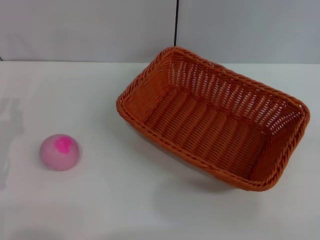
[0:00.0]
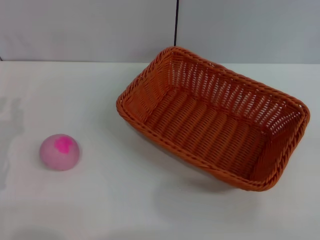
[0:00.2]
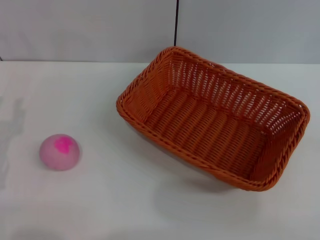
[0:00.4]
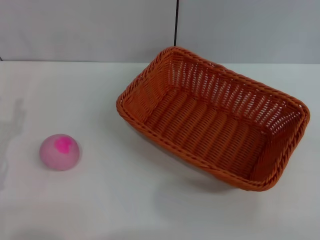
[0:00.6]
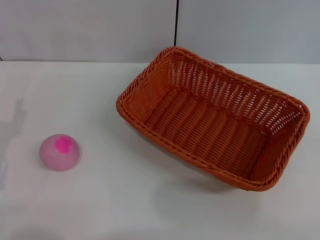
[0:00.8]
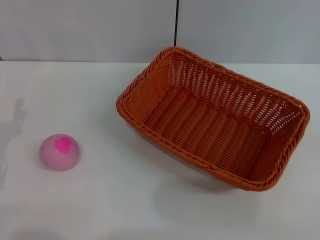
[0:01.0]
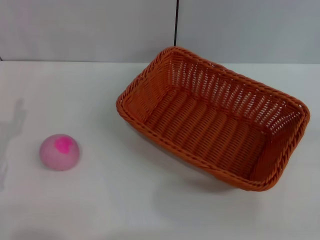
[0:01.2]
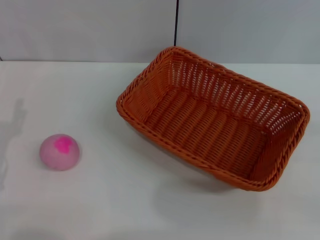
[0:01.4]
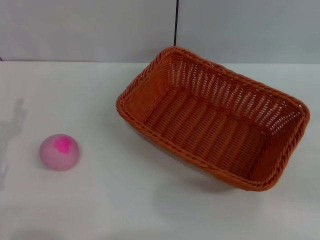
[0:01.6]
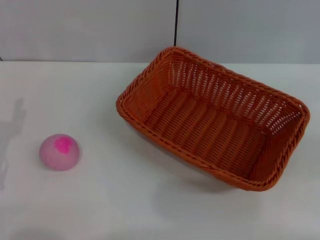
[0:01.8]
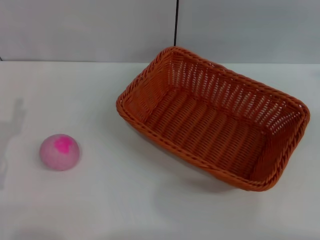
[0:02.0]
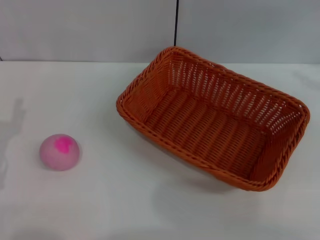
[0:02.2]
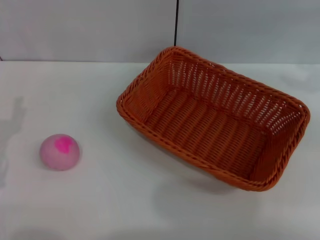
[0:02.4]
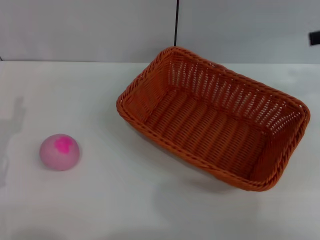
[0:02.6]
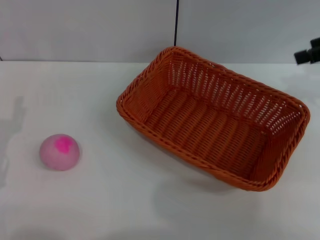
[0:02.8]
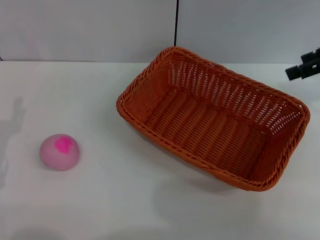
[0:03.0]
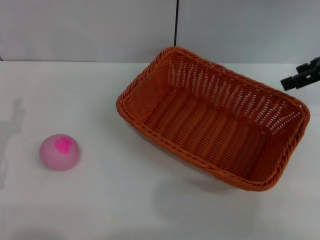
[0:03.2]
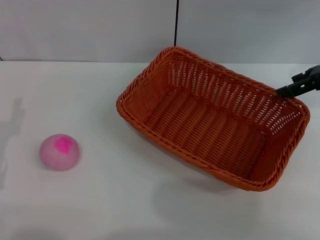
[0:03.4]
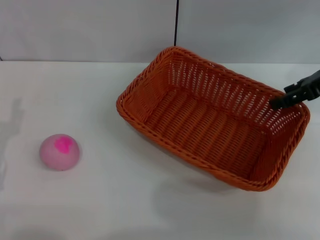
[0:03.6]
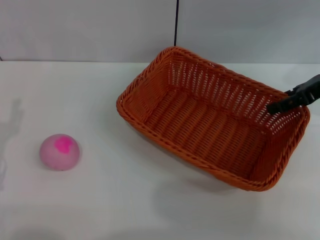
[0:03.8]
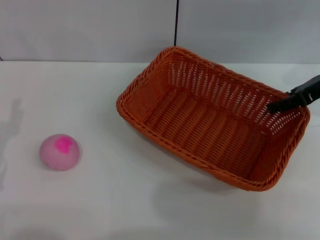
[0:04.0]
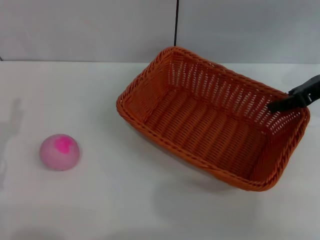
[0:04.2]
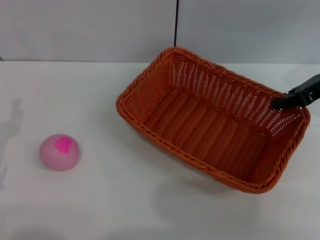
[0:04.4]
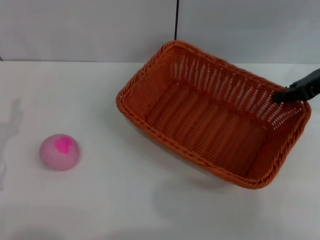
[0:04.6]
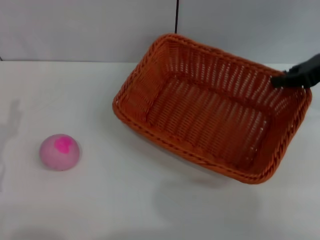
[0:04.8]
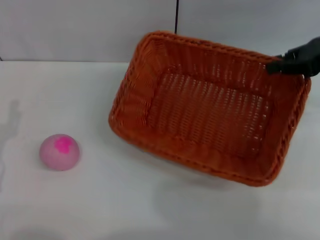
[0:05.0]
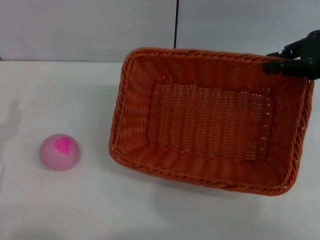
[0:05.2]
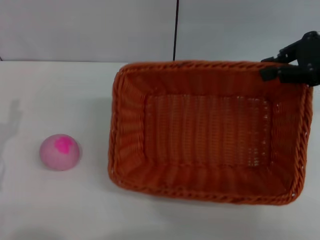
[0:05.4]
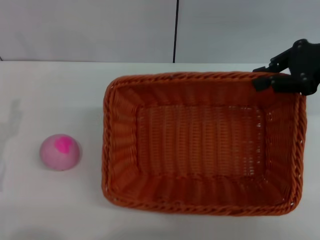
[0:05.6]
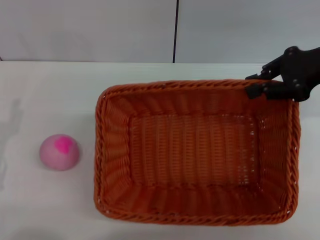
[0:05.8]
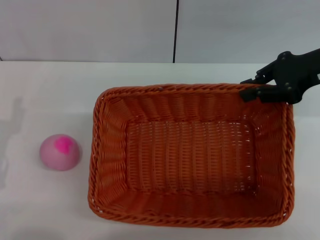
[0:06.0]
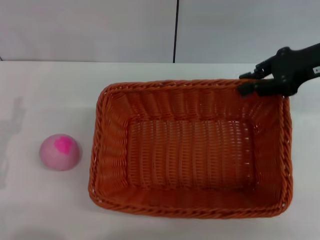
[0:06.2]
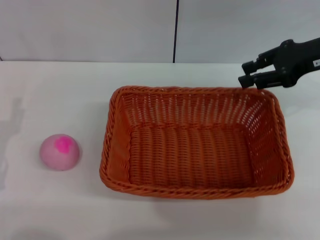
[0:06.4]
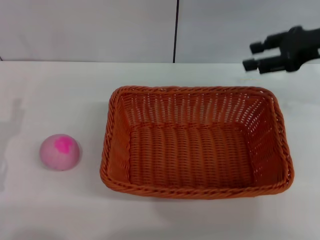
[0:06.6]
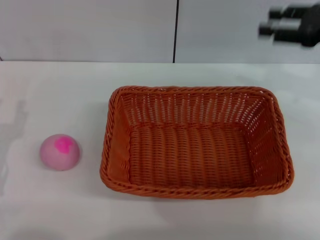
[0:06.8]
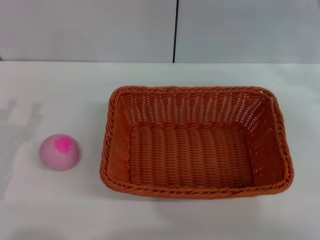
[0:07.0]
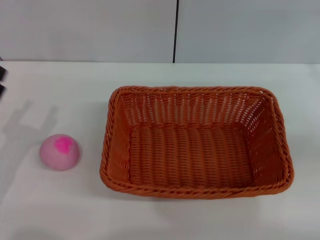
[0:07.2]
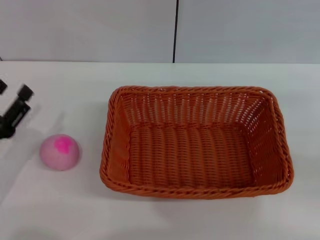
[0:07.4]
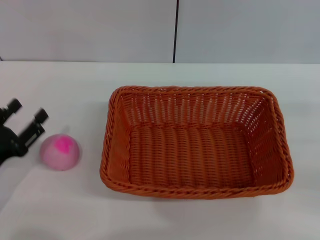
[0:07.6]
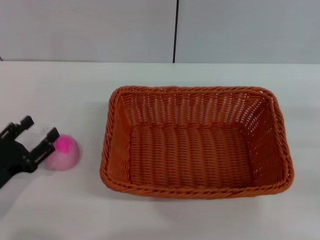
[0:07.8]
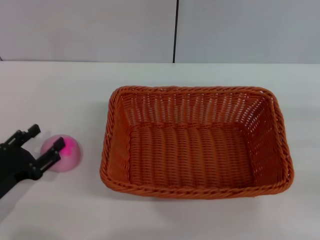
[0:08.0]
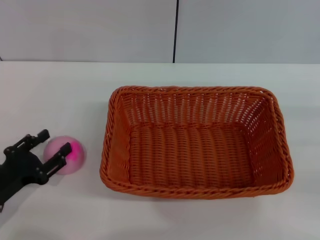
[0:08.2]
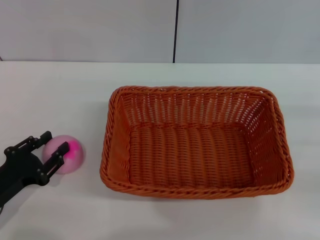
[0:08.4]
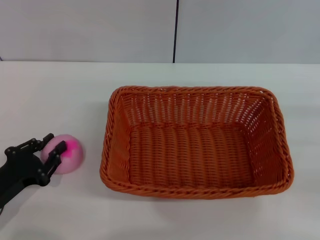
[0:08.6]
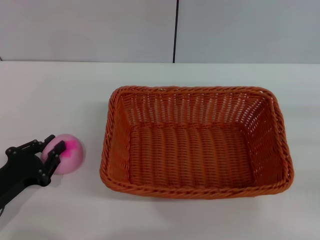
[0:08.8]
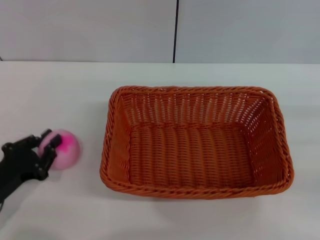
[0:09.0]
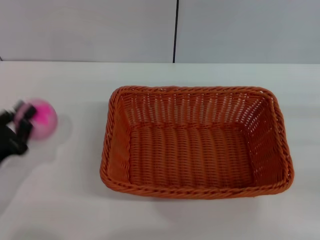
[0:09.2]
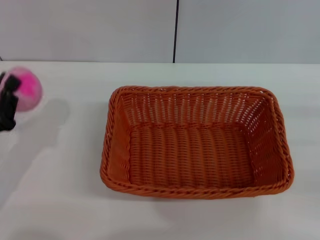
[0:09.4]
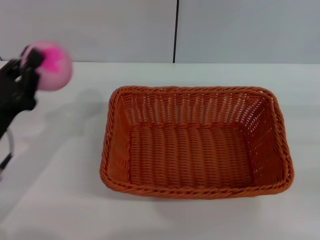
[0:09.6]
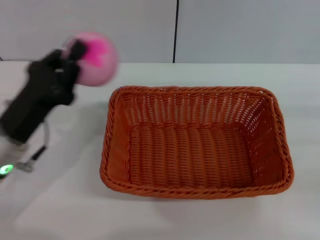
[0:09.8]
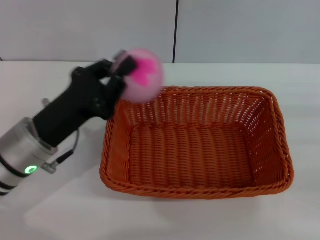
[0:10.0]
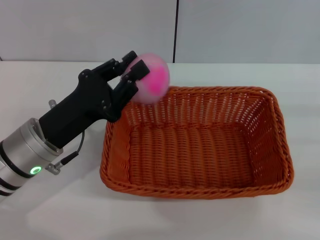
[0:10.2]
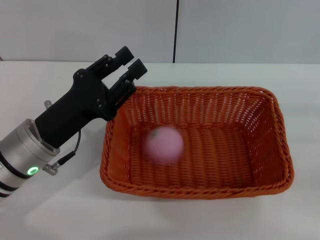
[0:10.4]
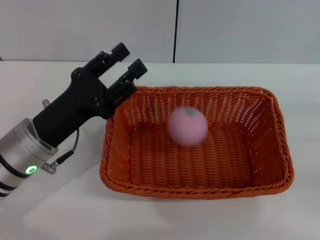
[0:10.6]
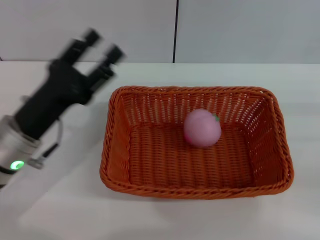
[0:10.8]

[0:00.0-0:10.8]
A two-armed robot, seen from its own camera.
Step, 0:00.0 to 0:04.6: Pick up the light basket with the right gripper.
Step, 0:04.8 to 0:06.4: Place the light basket in the center of view with the right gripper.
Step, 0:06.6 to 0:09.2: Pick up the peach with the left gripper.
0:01.6 to 0:03.0: The right gripper heads forward, to the left and upward, covering some 25 cm, and opens its fingers.
0:03.0 to 0:04.6: The right gripper heads downward, covering approximately 5 cm, and closes.
0:06.2 to 0:07.8: The right gripper heads backward, to the right and downward, covering roughly 25 cm, and opens up. Meanwhile the left gripper is displaced downward by approximately 5 cm.
0:07.8 to 0:09.2: The left gripper closes its fingers.
0:09.2 to 0:10.8: The left gripper travels to the right, forward and upward by roughly 10 cm, and opens.

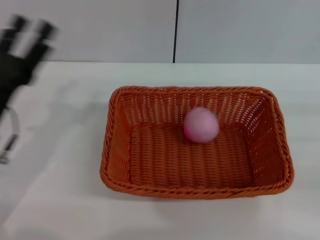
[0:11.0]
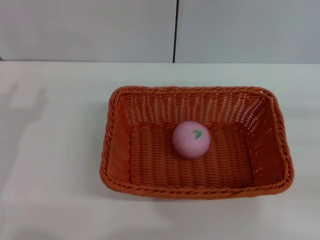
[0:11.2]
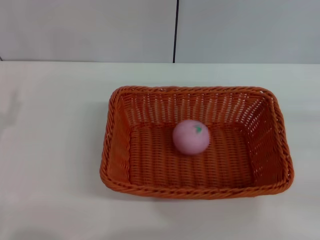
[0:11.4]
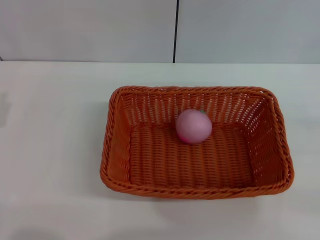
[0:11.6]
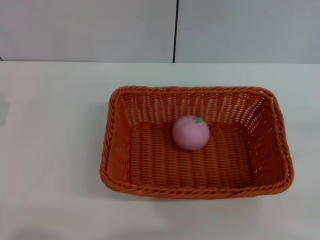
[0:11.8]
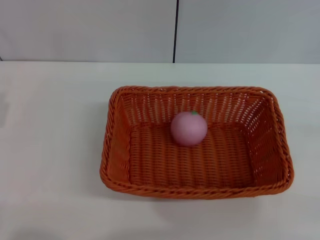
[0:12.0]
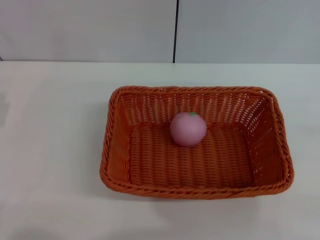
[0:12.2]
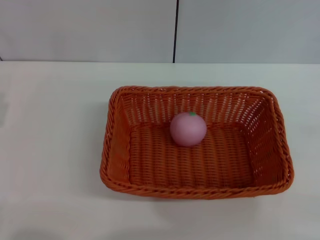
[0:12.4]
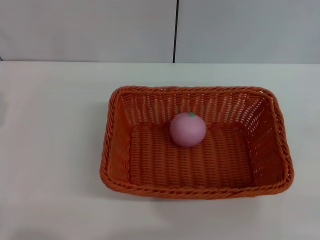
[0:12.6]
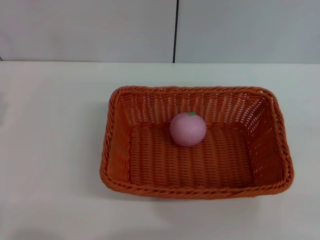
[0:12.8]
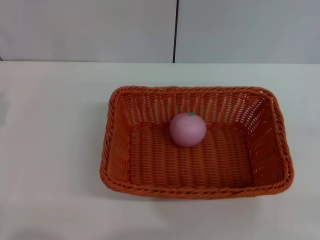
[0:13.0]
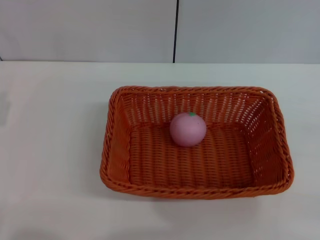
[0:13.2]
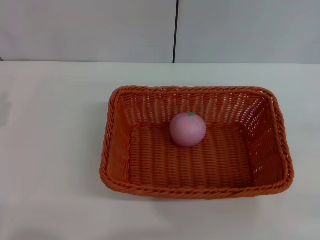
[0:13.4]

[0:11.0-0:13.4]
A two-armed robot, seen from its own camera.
0:11.0 to 0:12.2: The left gripper goes approximately 5 cm to the left. The right gripper moves about 5 cm.
0:12.2 to 0:13.4: Neither gripper changes place.
